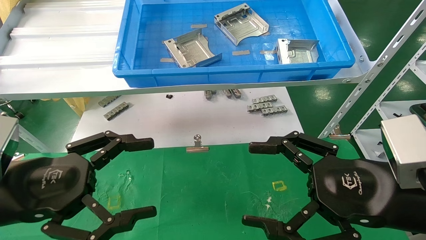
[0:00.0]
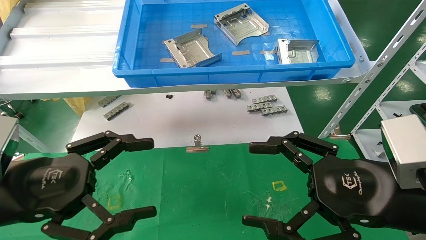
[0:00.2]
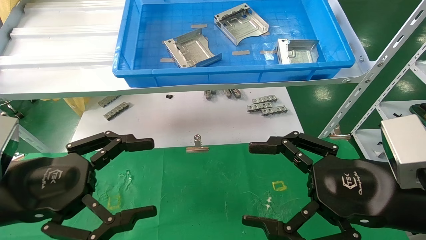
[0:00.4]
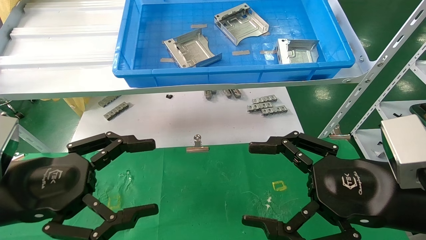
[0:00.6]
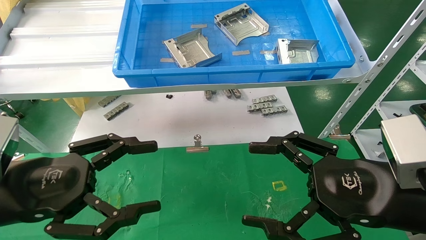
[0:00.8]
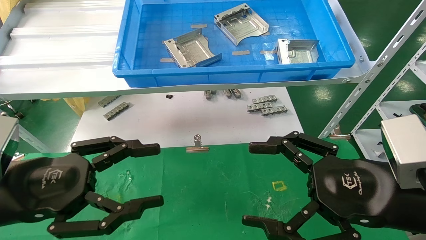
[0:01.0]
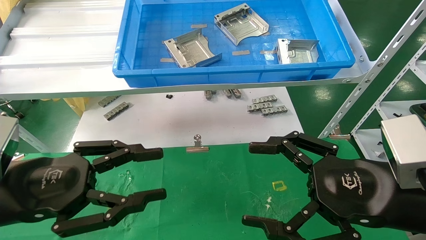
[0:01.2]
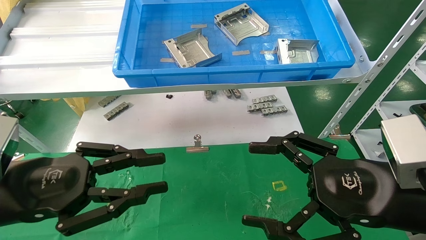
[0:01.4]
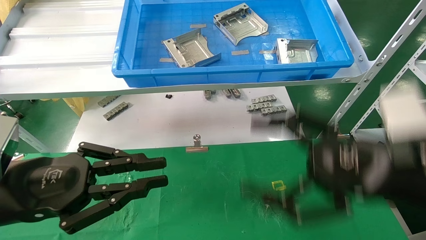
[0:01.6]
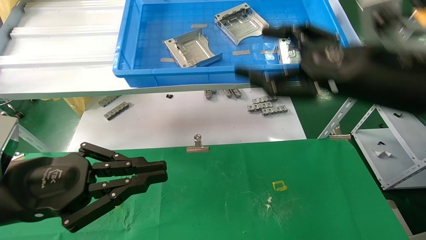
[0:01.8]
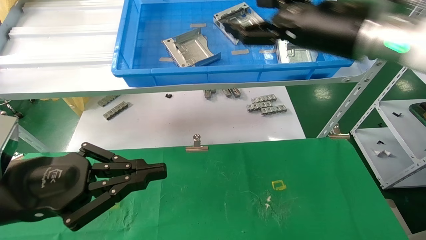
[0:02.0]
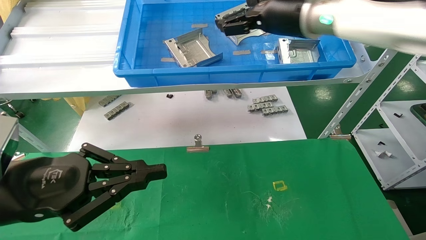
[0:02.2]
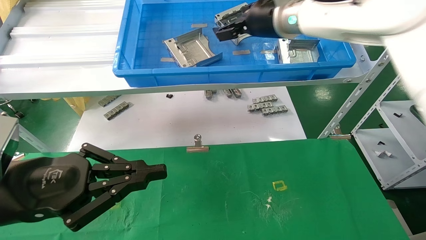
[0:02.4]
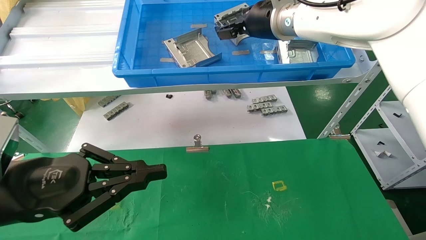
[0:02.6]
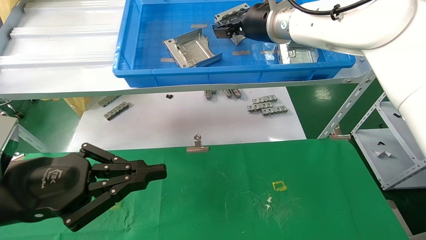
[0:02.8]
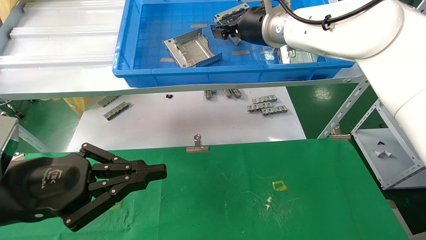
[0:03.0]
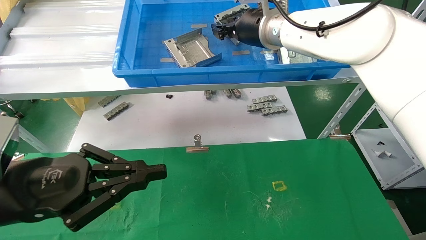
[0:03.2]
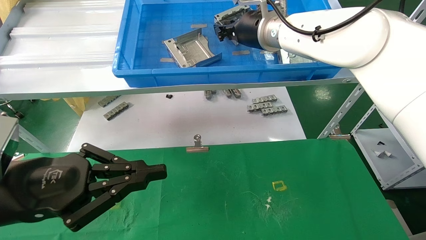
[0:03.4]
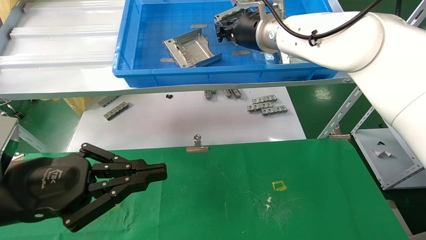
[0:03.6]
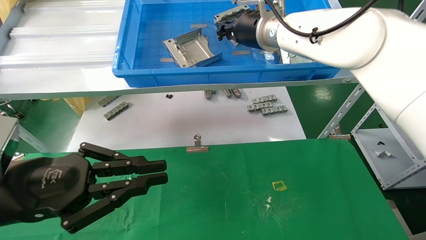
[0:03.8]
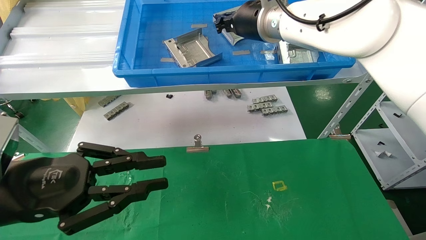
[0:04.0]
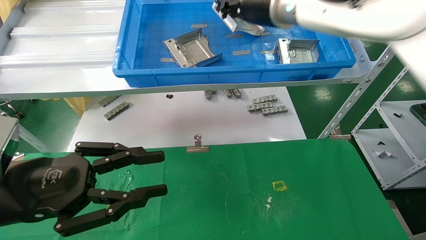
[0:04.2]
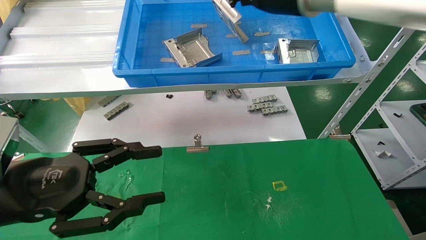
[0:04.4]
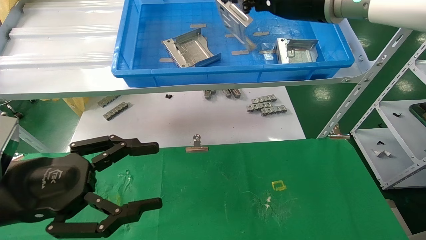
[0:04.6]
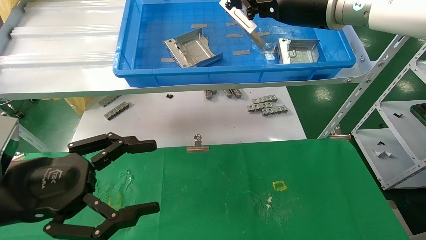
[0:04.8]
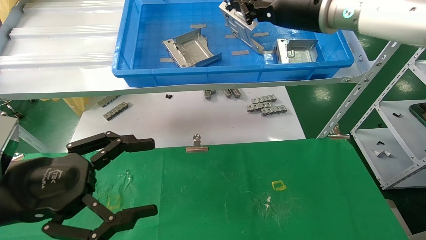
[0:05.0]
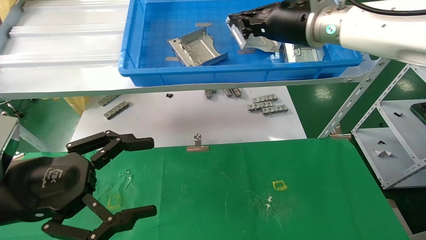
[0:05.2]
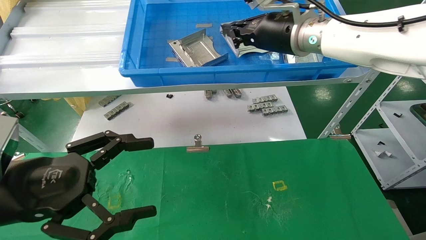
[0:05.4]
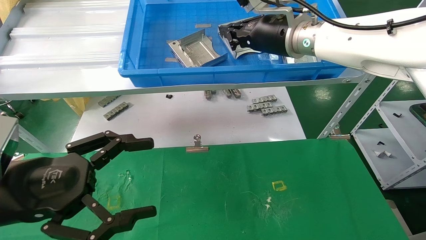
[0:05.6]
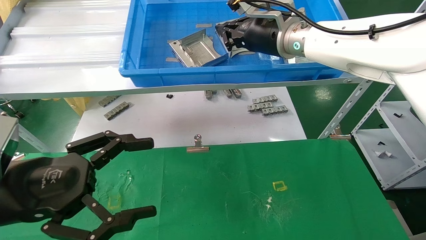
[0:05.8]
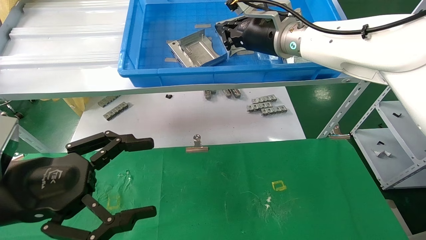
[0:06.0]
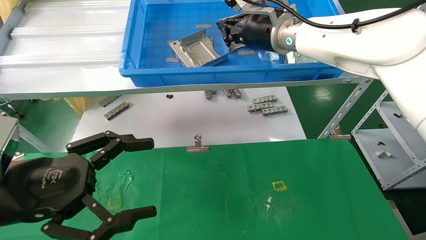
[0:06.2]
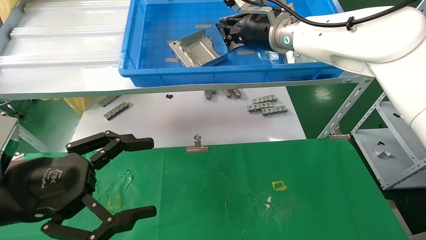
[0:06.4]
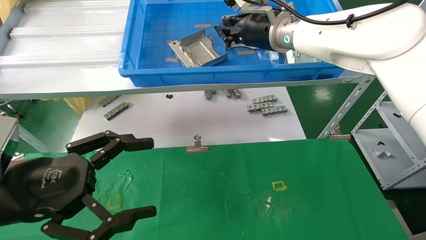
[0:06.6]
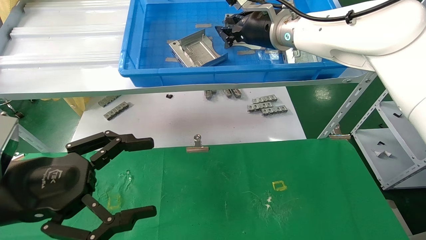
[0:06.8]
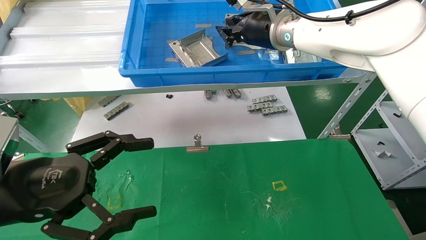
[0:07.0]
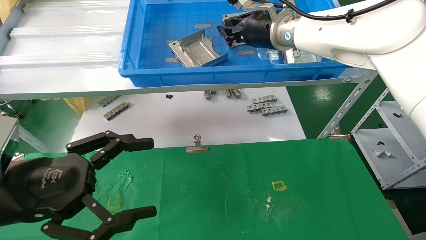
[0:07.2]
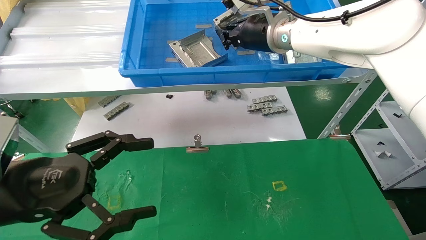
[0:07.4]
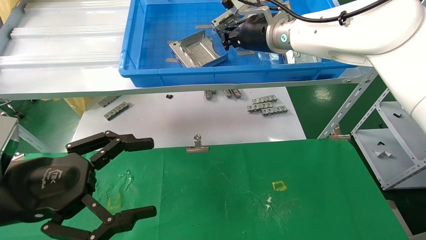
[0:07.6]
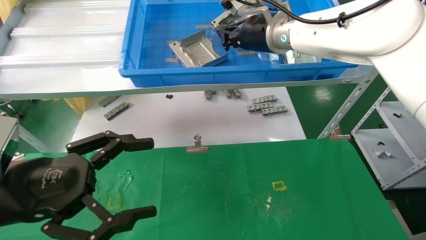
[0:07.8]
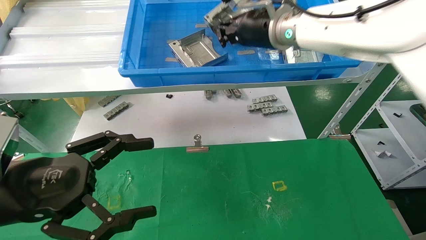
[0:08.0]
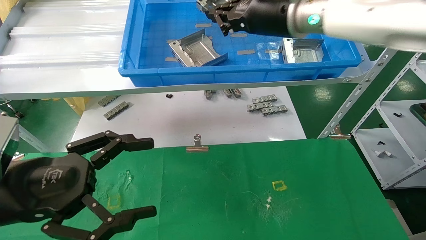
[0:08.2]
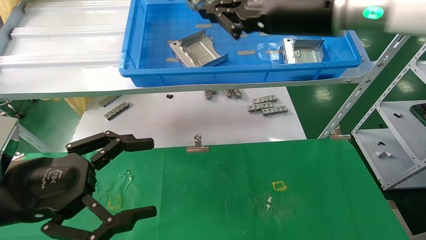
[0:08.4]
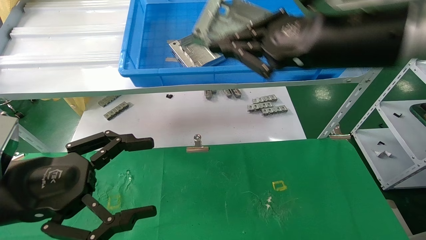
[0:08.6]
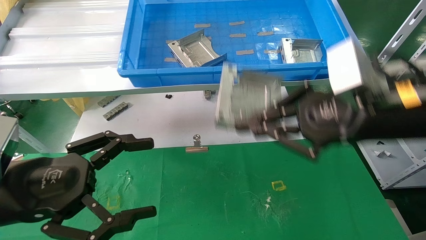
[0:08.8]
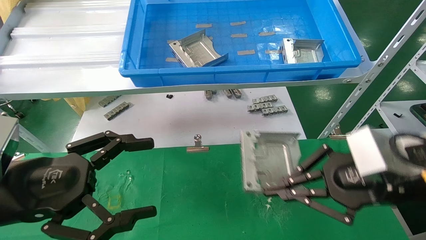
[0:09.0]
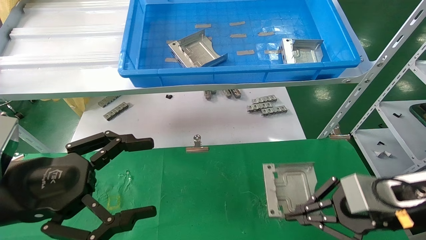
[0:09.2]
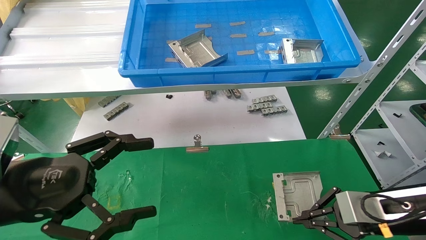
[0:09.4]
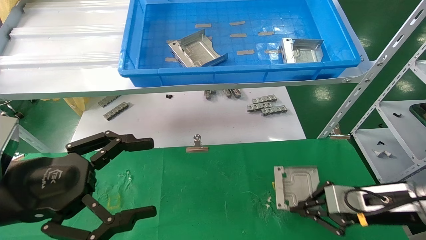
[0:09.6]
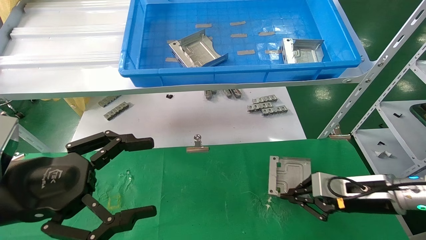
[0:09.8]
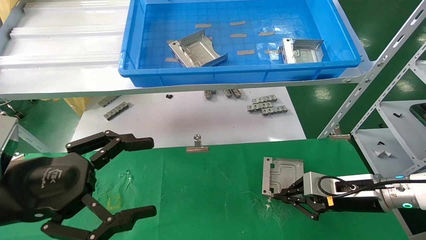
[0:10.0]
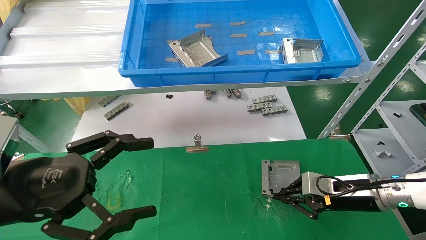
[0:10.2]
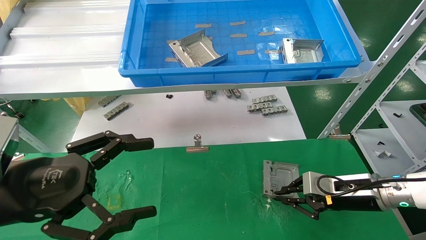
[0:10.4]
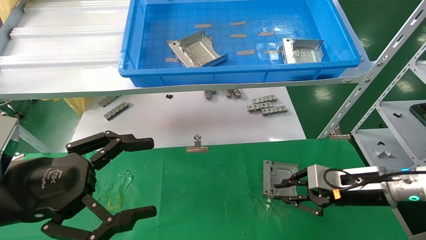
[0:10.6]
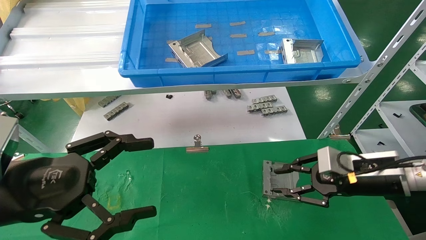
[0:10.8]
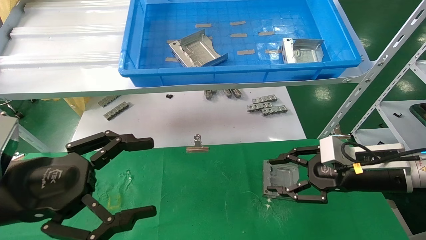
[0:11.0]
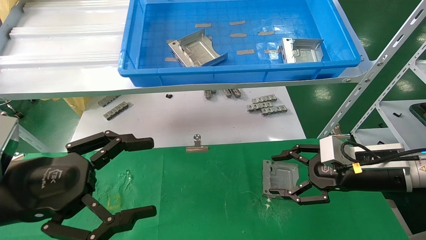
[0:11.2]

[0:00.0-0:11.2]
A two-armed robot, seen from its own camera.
Task of the whole recording: use the mechanical arm to pick up the parts and place them on the table.
Step, 0:01.6 to 0:04.4: Pick up the hard drive bracket from the feeding area.
Step, 0:04.6 to 0:07.2: Place the hard drive bracket into the box.
0:00.0 to 0:01.6: The right gripper moves upward, about 5 cm, while the left gripper closes up.
0:01.6 to 0:03.2: The right gripper travels forward, to the left and upward by roughly 30 cm, and closes.
0:03.2 to 0:04.8: The left gripper opens up; the right gripper is displaced backward and to the right by some 10 cm, and closes.
0:04.8 to 0:06.4: The right gripper goes about 10 cm forward.
0:06.4 to 0:08.0: The grippers make only small movements.
0:08.0 to 0:09.6: The right gripper goes some 35 cm downward and to the right.
0:09.6 to 0:11.2: The right gripper opens.

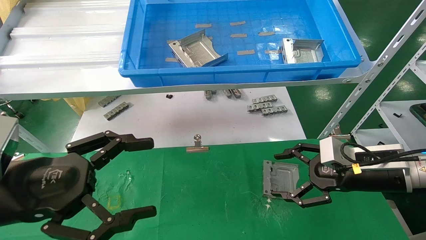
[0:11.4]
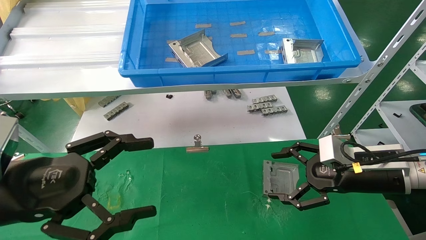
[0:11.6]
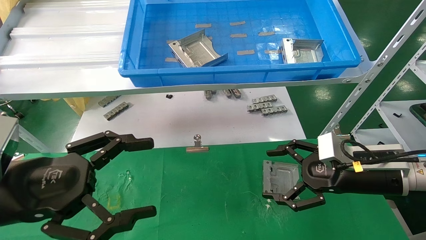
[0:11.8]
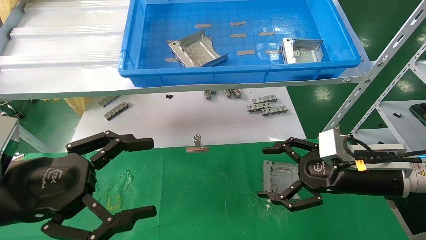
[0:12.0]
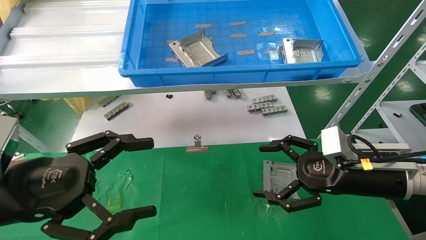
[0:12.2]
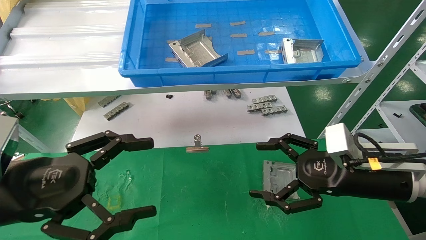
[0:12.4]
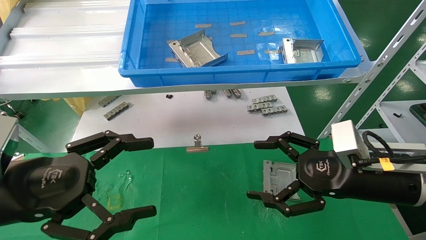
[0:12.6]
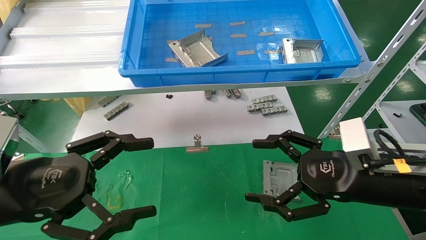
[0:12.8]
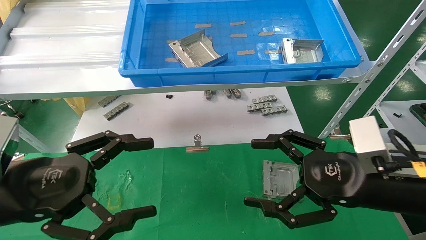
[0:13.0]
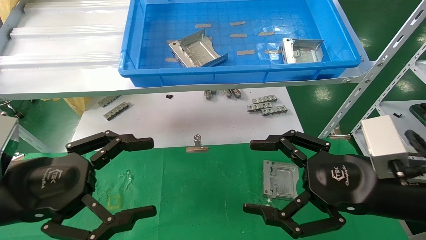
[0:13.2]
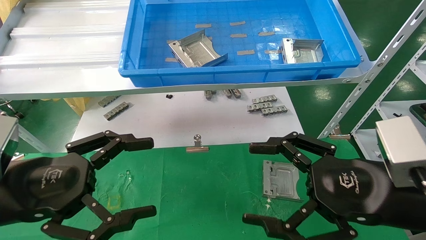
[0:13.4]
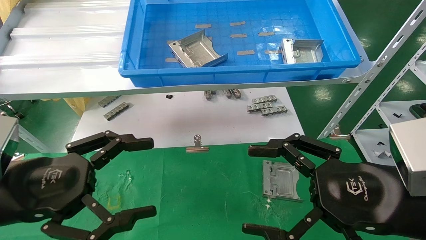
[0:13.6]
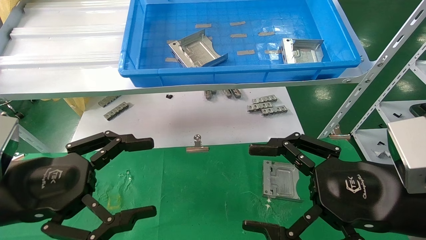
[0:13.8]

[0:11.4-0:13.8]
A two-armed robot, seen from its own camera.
Task of the whole recording: use the mechanical arm to pick up the parts and place them on the table.
0:11.4 to 0:12.6: The right gripper heads backward, covering some 5 cm.
0:12.6 to 0:13.8: The right gripper goes about 10 cm backward.
